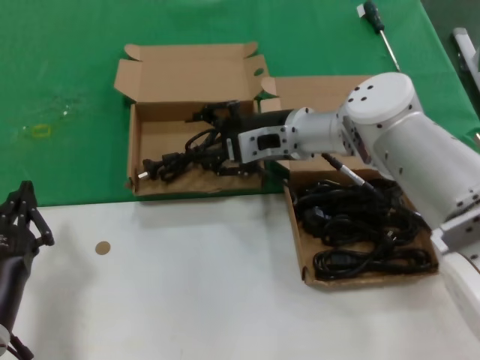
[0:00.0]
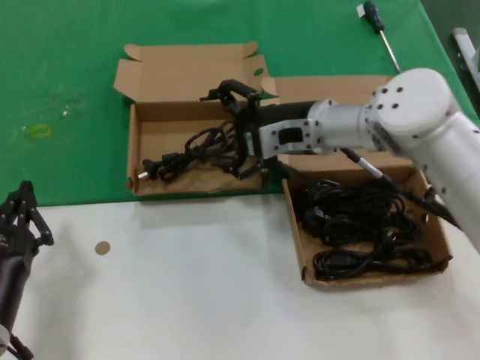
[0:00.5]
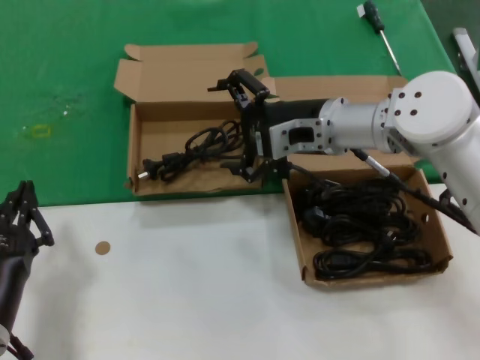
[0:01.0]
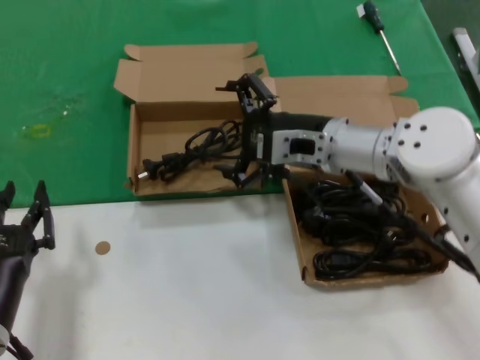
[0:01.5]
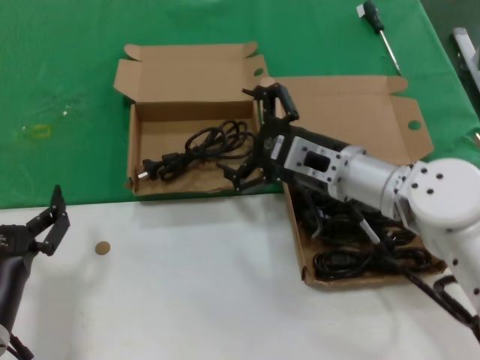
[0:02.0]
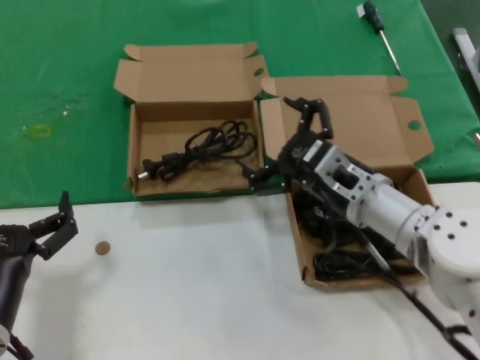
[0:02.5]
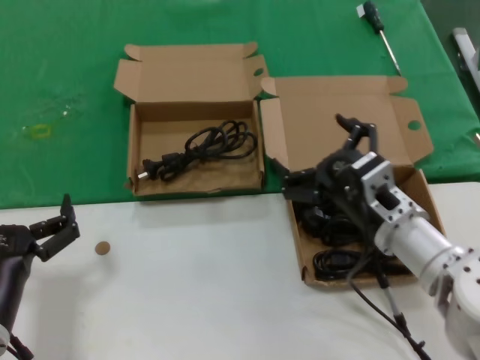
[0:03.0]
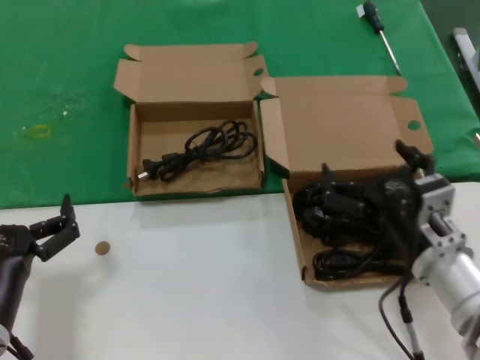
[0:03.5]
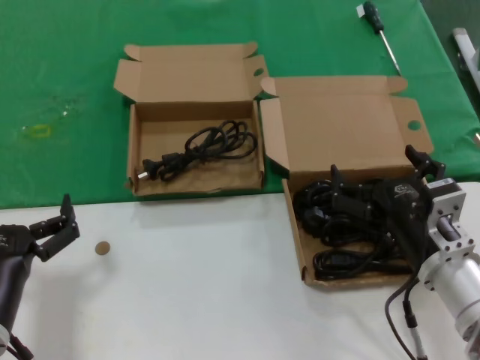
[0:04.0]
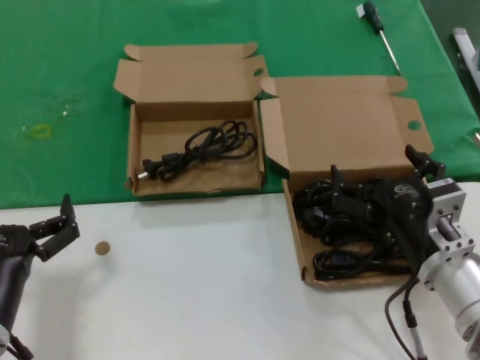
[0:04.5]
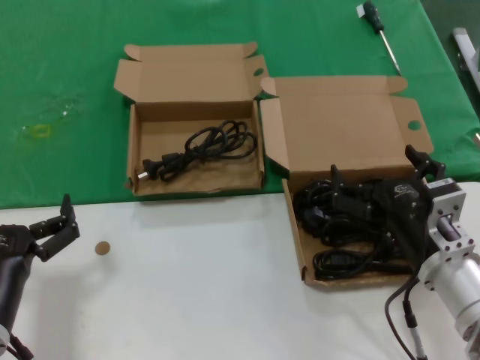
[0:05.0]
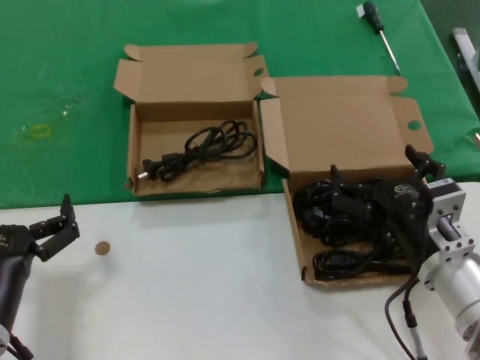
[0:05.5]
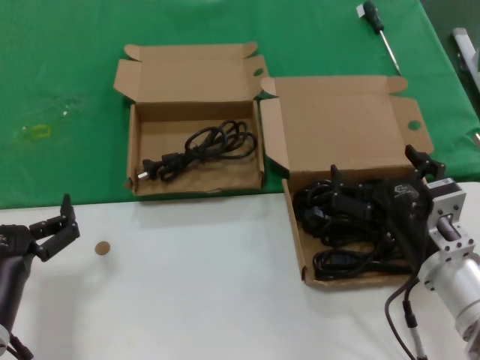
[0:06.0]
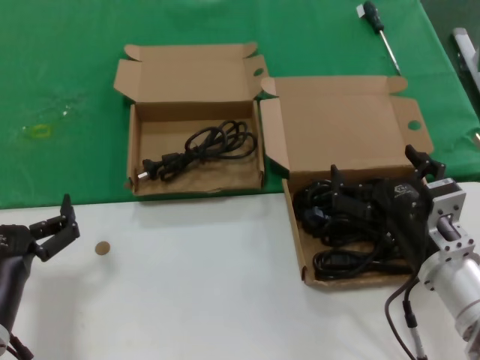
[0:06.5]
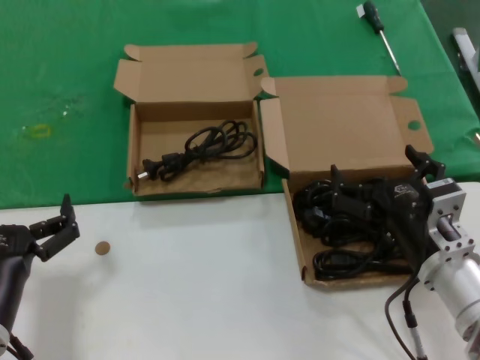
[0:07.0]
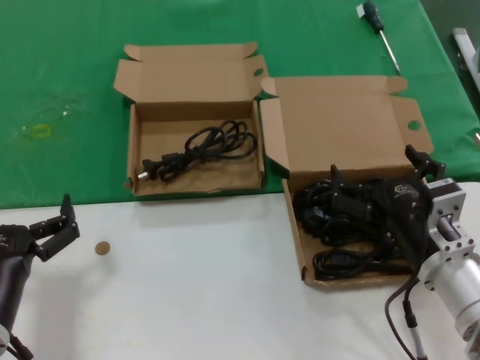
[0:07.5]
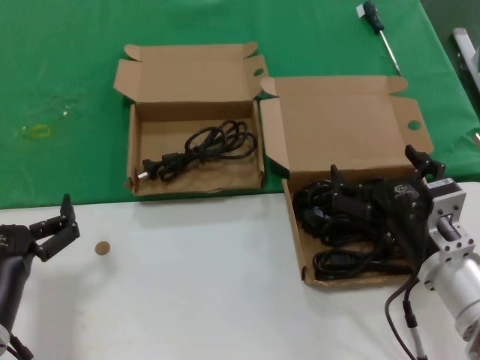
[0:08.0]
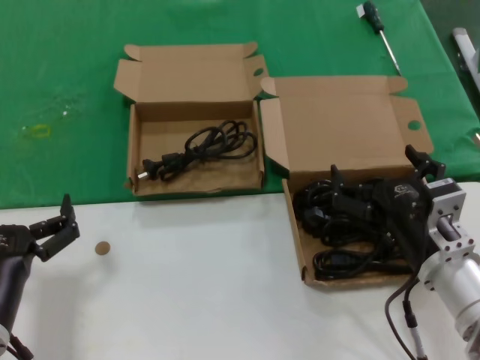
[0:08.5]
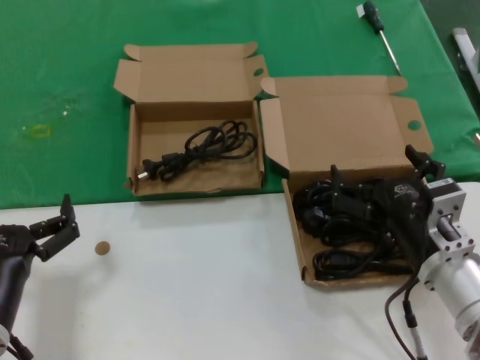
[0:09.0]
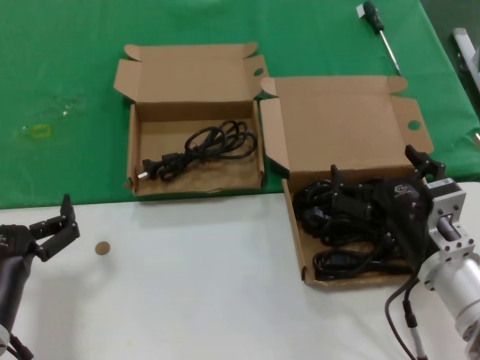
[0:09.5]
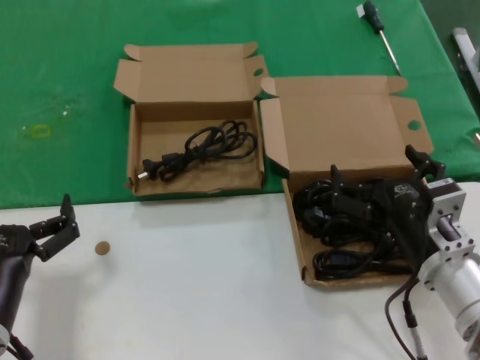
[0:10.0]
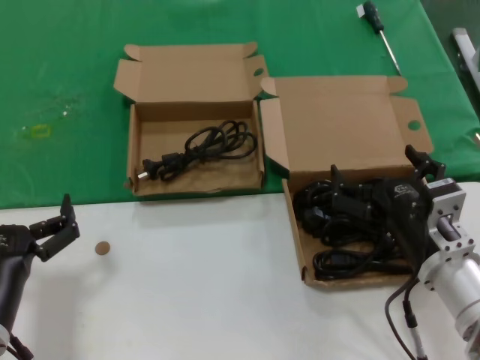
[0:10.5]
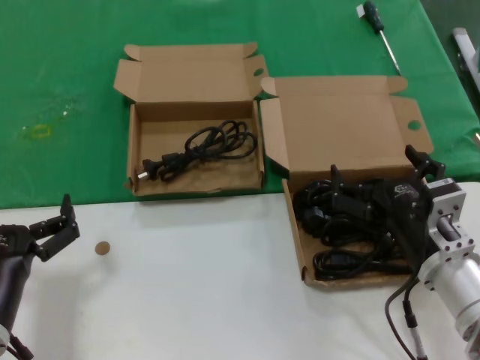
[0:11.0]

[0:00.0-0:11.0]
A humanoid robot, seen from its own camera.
Task of the whole recording: take the parts from the box containing them and put them into an empty box.
0:00.0 to 0:02.0: The right hand moves backward, about 10 cm.
0:02.0 to 0:03.5: The right hand moves backward, downward and to the right, some 15 cm.
0:03.5 to 0:11.0: Neither hand changes place.

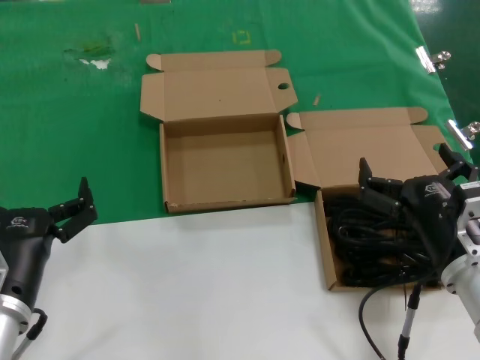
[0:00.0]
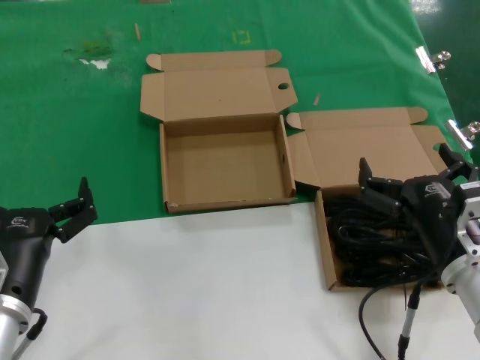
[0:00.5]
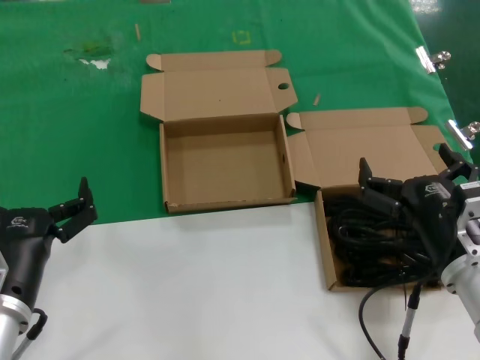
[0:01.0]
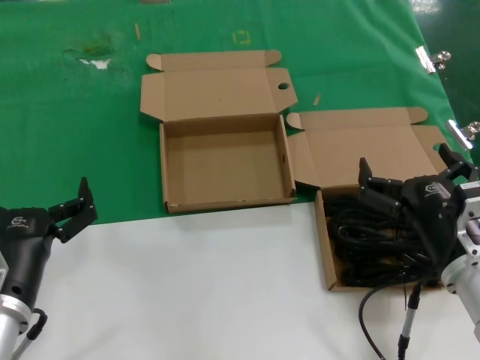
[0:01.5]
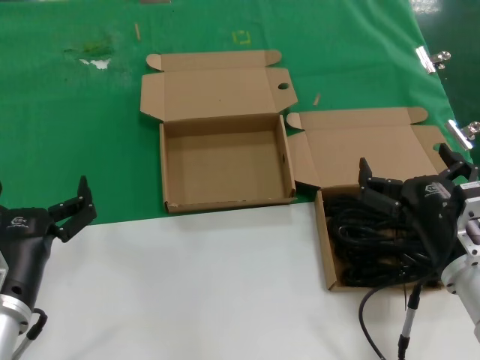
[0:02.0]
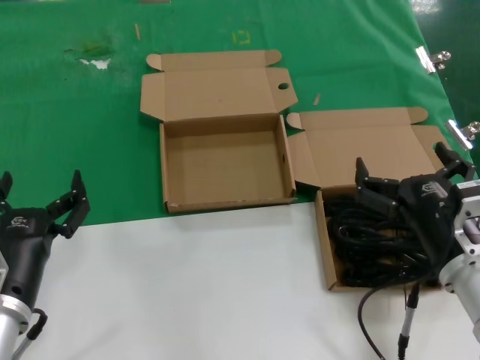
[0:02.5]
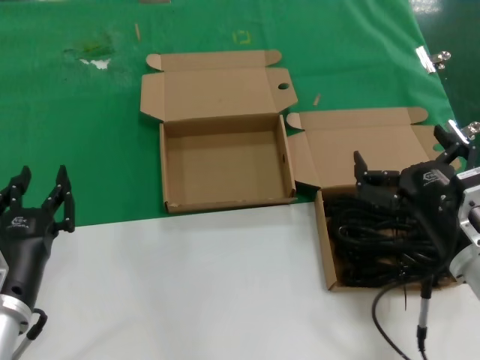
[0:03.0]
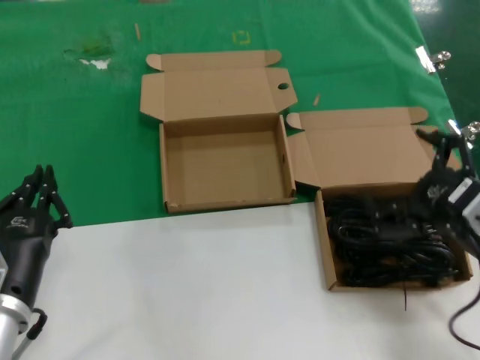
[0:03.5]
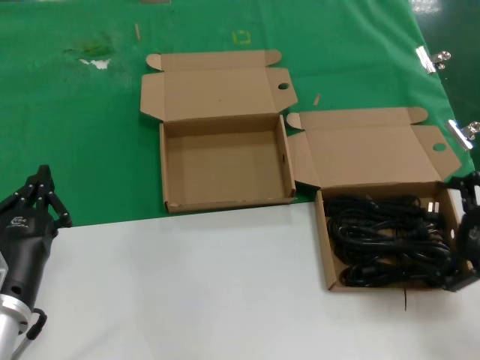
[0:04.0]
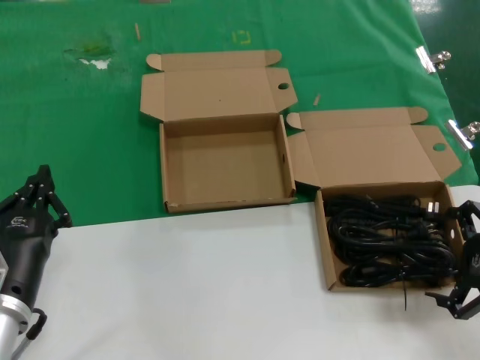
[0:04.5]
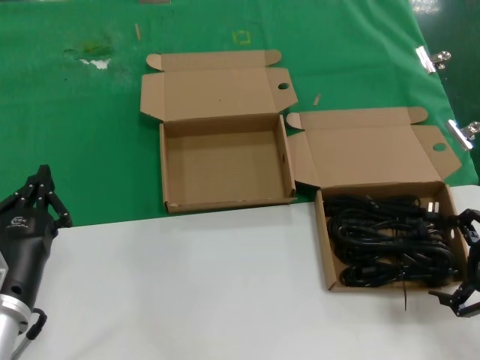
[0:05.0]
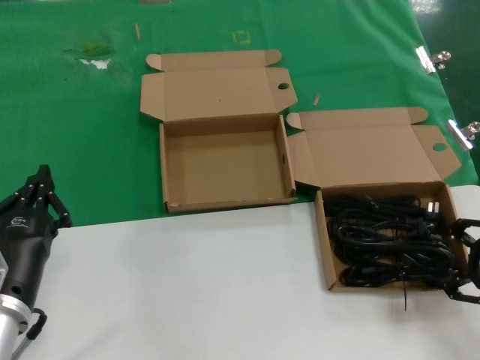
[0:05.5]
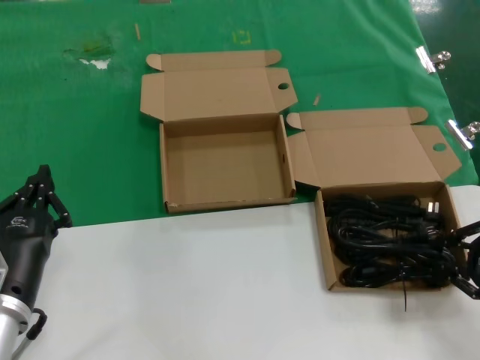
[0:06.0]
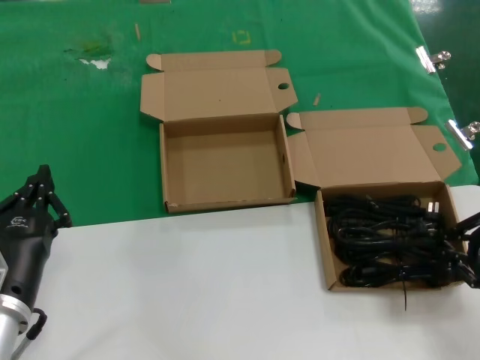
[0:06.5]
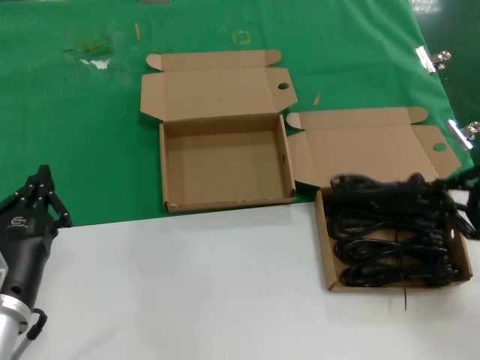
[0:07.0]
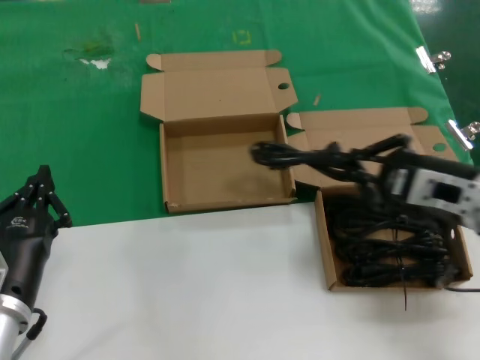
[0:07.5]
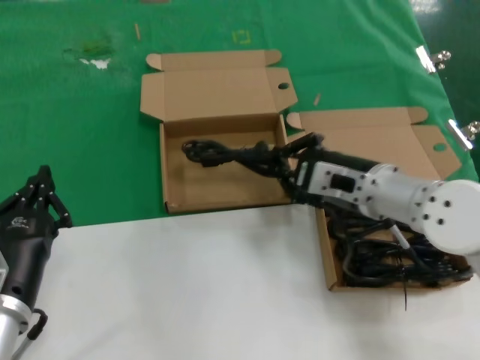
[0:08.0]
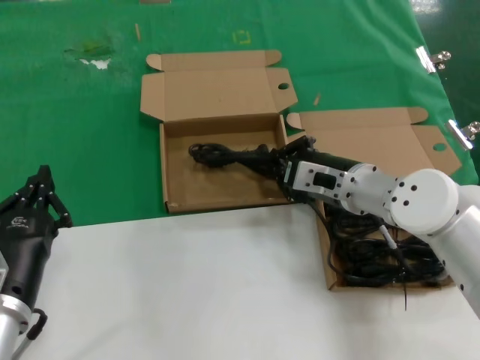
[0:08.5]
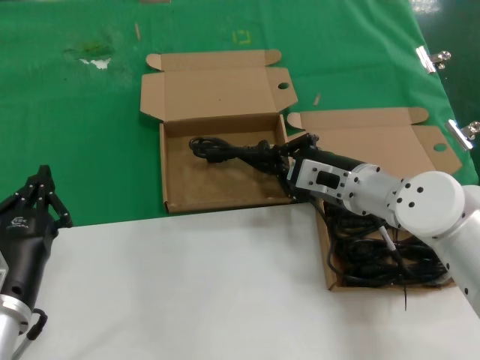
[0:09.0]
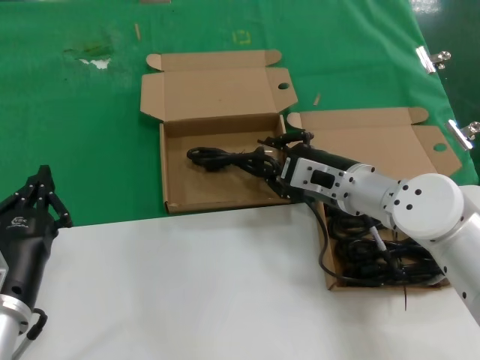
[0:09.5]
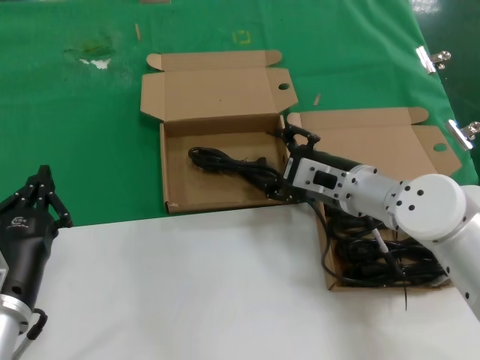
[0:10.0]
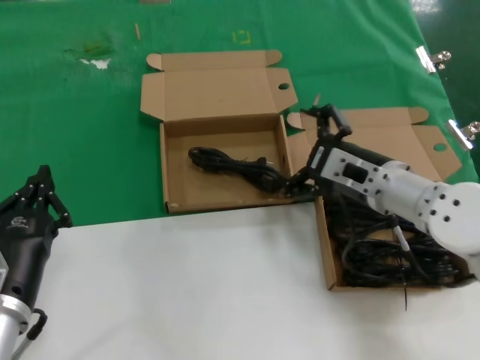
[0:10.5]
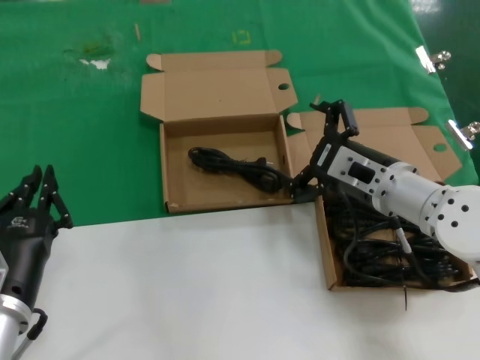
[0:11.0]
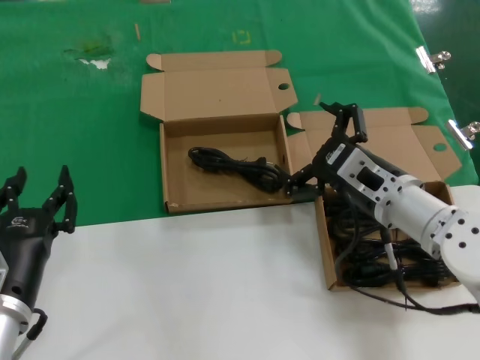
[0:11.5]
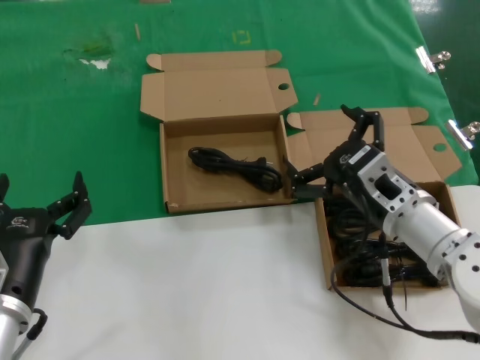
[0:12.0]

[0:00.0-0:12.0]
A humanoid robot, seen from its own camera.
Task of the whole recording: take the parts from the box containing them and put them into an empty box.
Step, 0:00.0 to 0:06.0: Grasp the data cable.
Step, 0:06.5 to 0:10.0: Place the data cable in the another box.
0:00.0 to 0:02.0: Both hands stay about where they are.
0:02.0 to 0:04.0: The right hand shifts some 15 cm to the right and upward.
0:04.0 to 0:06.0: There are only small adjustments of the hands.
0:06.0 to 0:08.0: The right hand heads to the left and forward, covering roughly 25 cm.
0:08.0 to 0:10.0: The right hand changes place by about 5 cm.
0:10.0 to 0:12.0: The right hand goes about 10 cm backward.

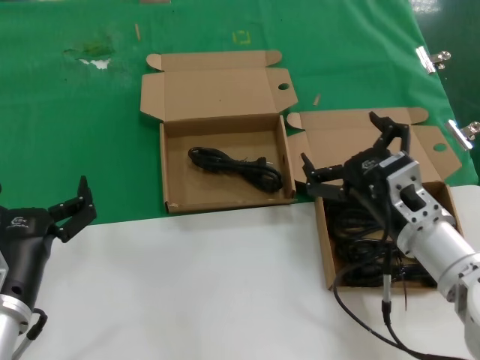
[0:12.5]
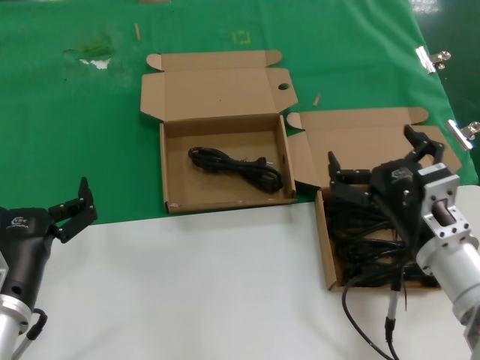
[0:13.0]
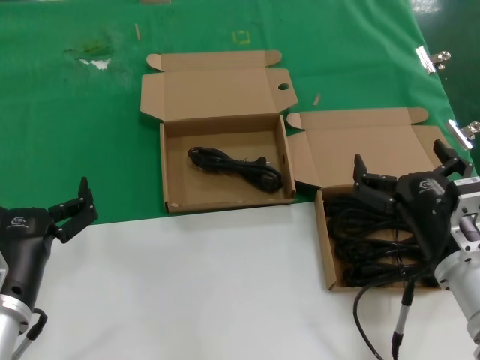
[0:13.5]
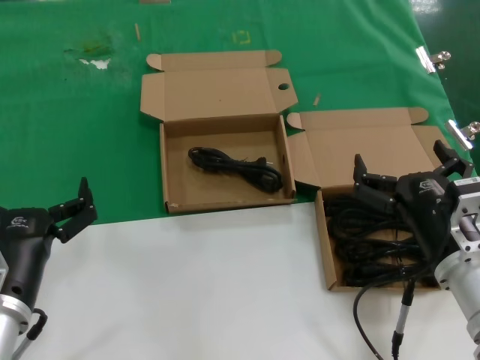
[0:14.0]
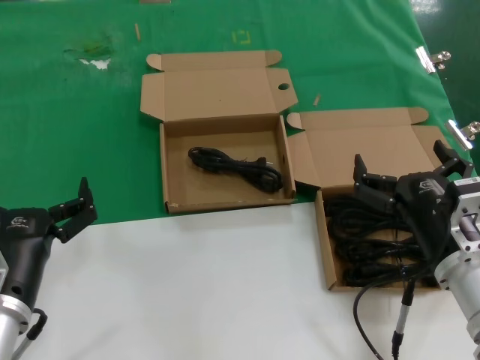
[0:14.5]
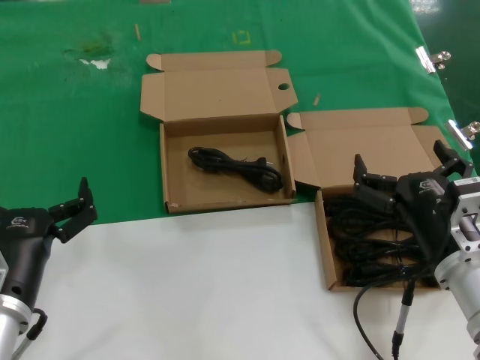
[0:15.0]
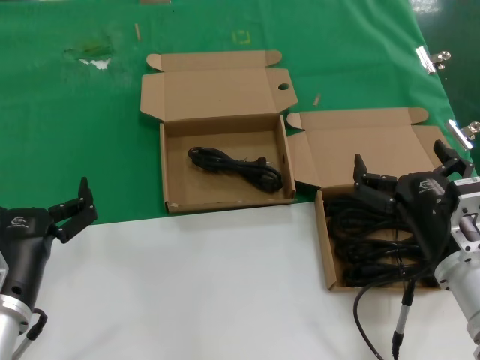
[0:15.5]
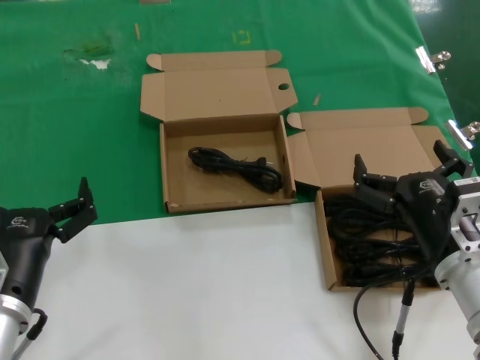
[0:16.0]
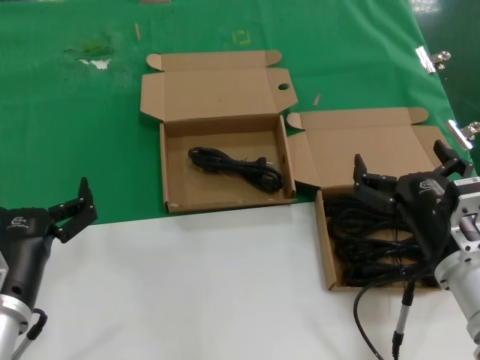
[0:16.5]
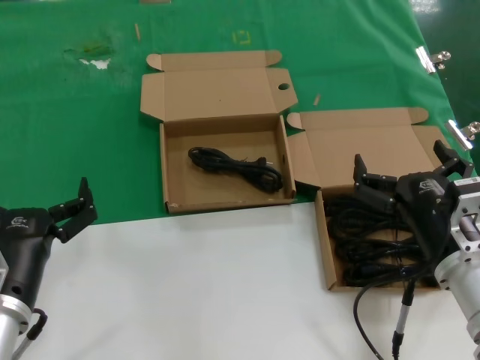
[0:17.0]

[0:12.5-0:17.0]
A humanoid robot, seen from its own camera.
Task of the whole recording: take the parts from the box containing them and put them into an empty box.
0:12.5 to 0:14.5: The right hand moves backward, roughly 5 cm.
0:14.5 to 0:17.0: Both hands stay put.
